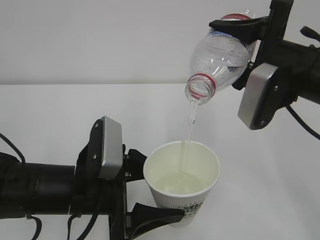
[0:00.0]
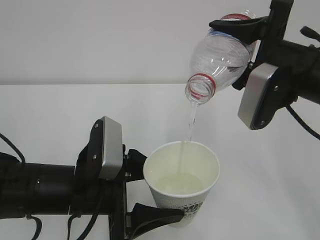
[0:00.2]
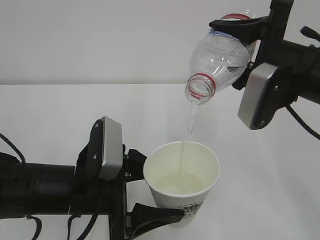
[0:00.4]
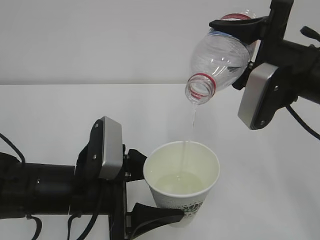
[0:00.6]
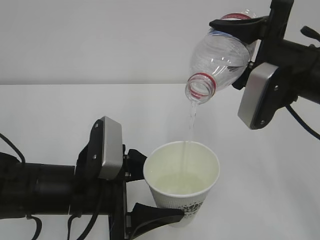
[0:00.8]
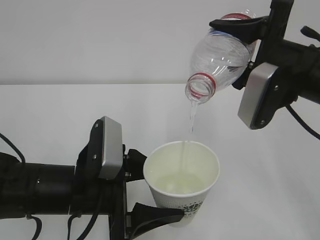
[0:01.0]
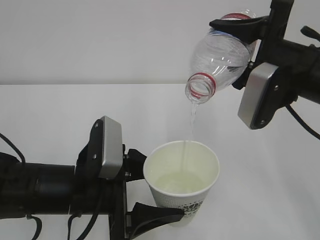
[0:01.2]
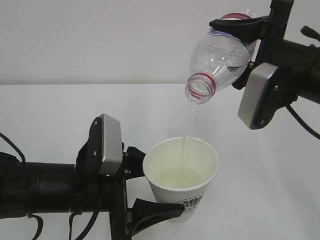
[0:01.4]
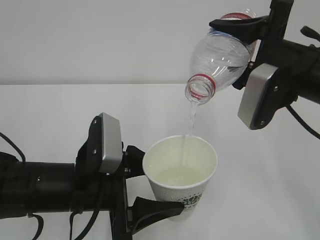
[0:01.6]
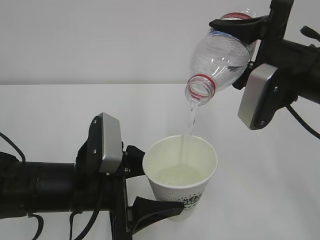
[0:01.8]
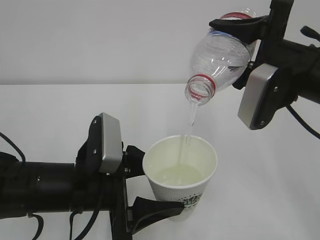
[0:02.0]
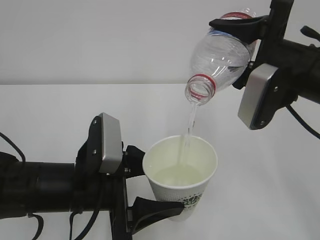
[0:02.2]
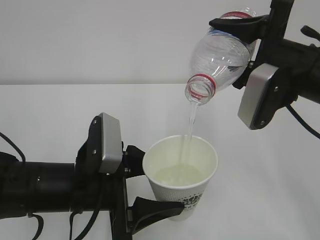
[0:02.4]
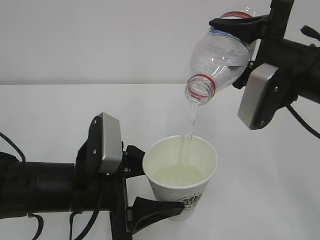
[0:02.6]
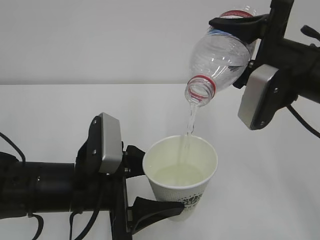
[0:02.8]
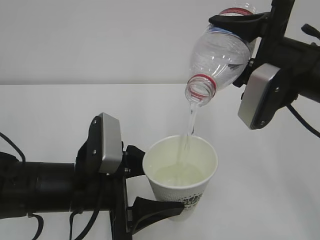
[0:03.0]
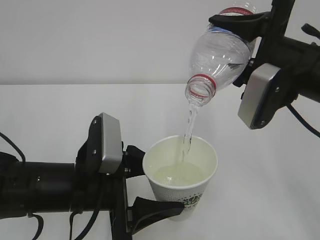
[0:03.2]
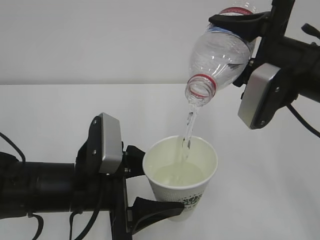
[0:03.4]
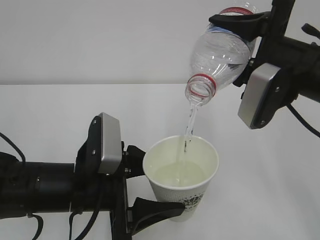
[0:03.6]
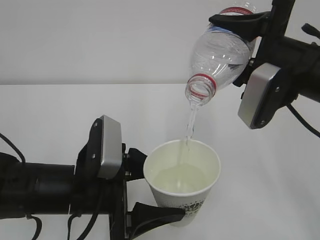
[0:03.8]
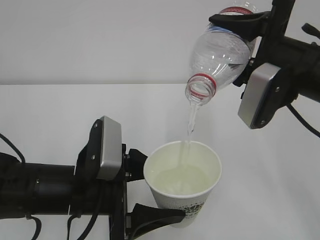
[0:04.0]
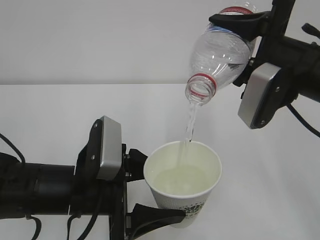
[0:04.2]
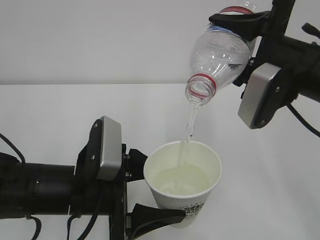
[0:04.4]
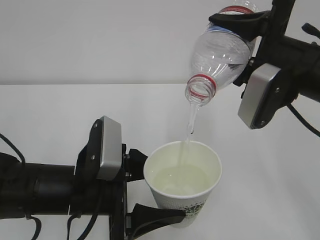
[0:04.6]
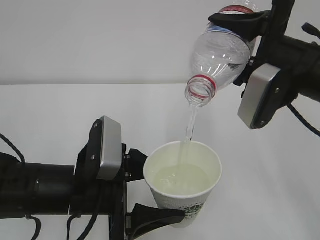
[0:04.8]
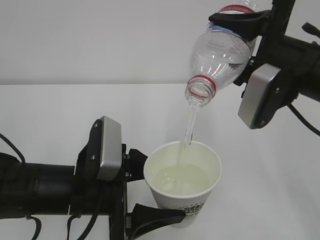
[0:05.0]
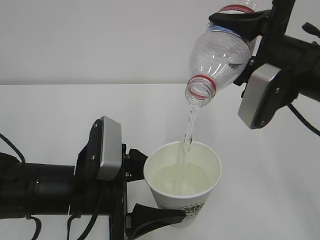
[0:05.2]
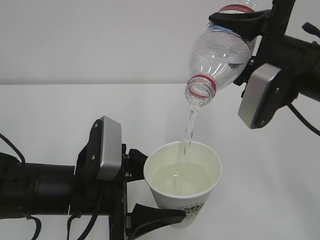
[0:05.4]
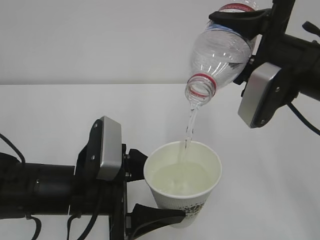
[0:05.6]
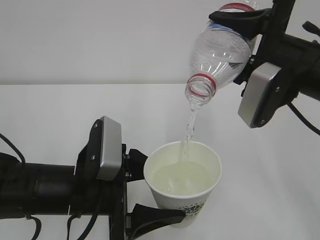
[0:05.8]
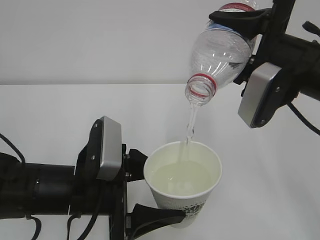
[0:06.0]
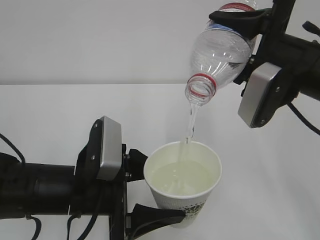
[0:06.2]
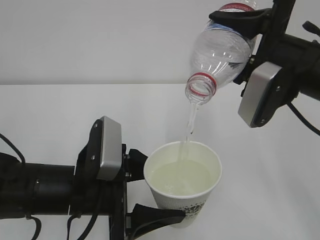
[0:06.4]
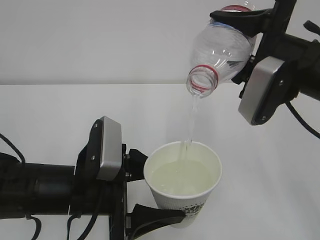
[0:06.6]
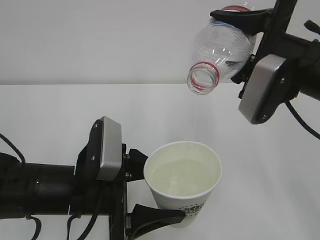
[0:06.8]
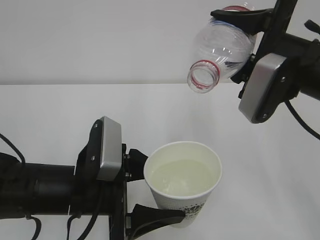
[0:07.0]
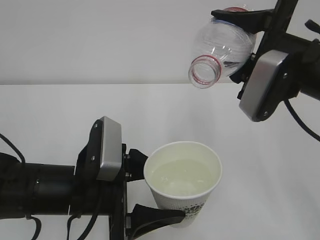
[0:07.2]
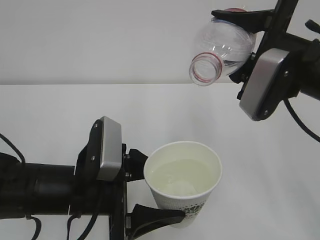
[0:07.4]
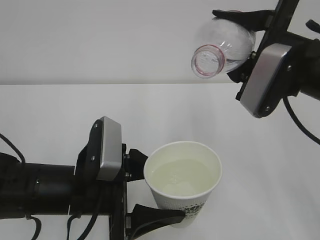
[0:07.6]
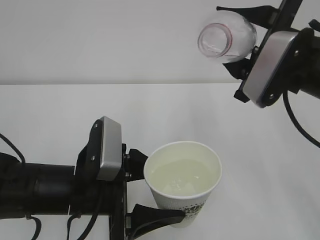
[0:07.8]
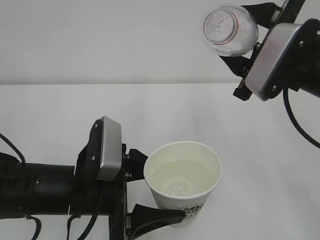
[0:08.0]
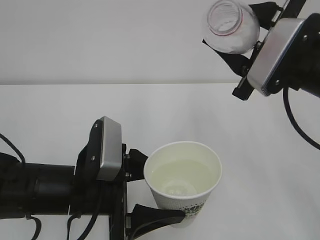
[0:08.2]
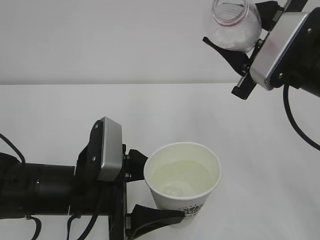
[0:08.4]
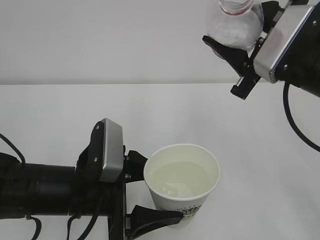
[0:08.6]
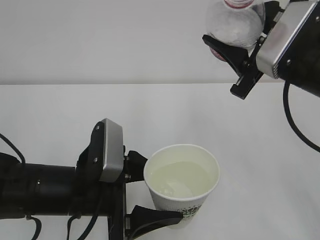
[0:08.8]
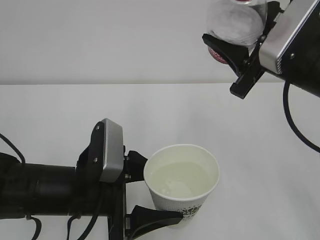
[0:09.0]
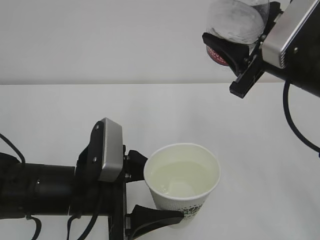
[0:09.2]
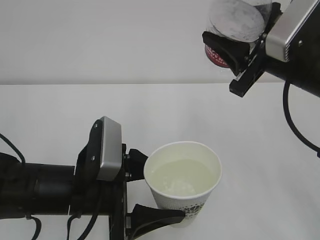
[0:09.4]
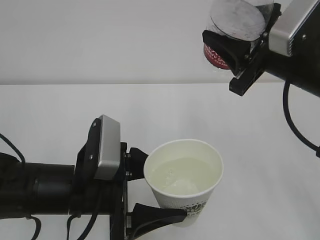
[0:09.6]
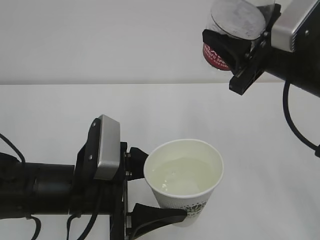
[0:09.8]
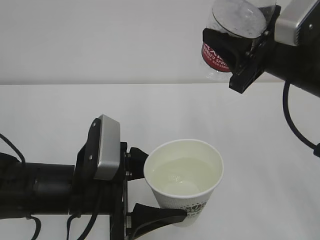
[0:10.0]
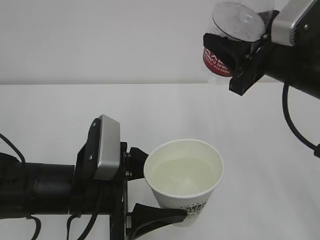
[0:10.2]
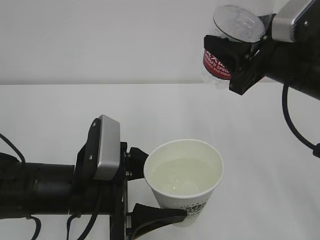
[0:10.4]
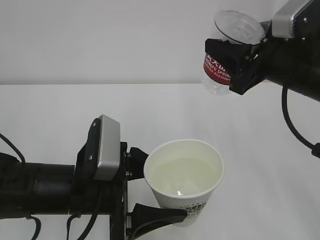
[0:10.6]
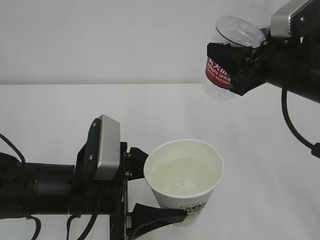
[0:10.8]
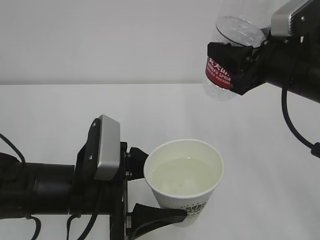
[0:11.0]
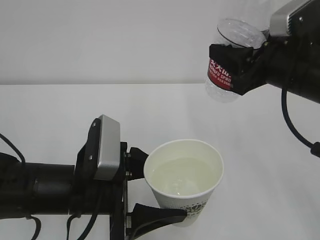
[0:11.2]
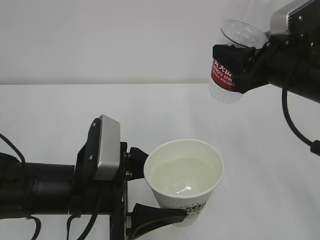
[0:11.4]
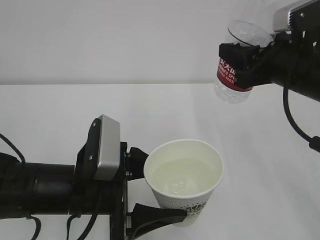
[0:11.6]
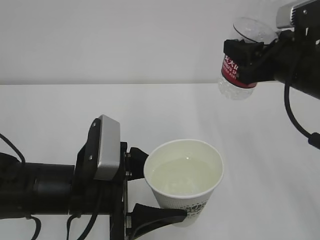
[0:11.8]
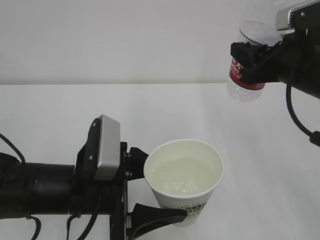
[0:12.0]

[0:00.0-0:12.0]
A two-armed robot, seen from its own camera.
0:00.0 to 0:04.4: Neither gripper changes place.
0:04.4 to 0:06.0: The two grippers keep their place.
0:06.0 to 0:07.6: The grippers move only a little.

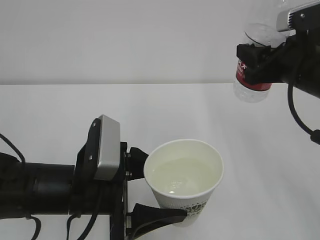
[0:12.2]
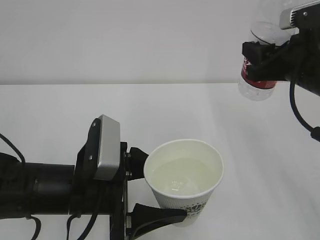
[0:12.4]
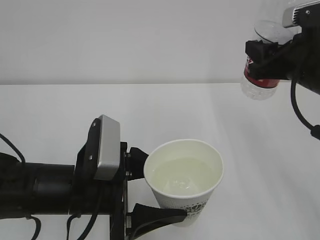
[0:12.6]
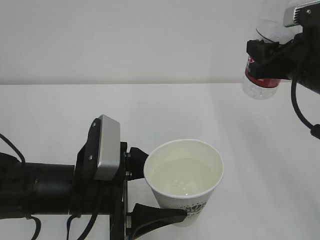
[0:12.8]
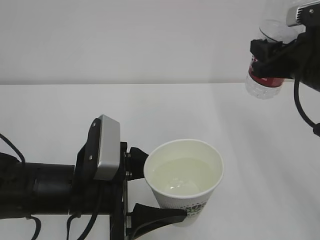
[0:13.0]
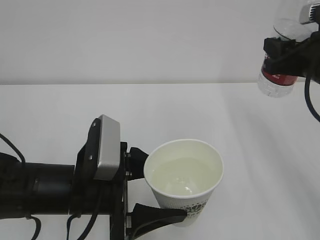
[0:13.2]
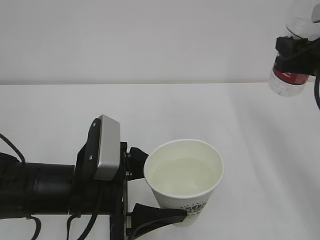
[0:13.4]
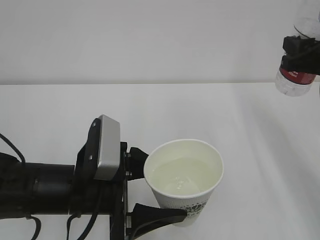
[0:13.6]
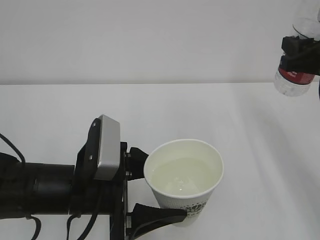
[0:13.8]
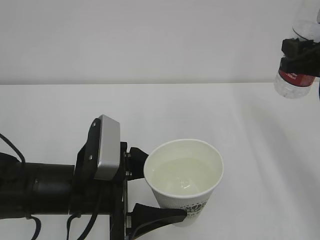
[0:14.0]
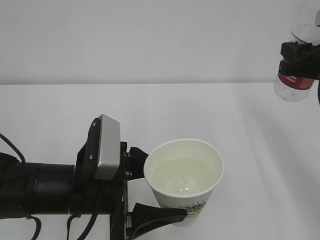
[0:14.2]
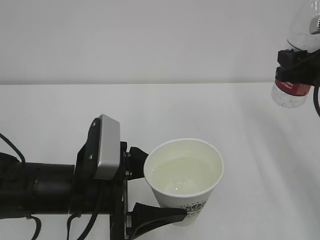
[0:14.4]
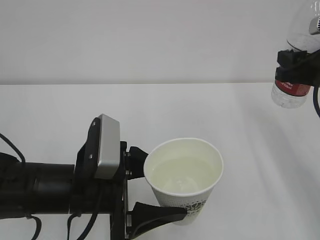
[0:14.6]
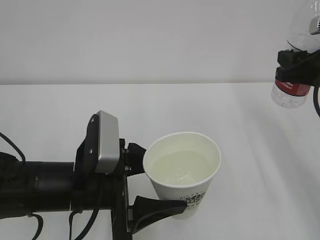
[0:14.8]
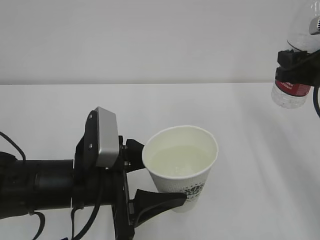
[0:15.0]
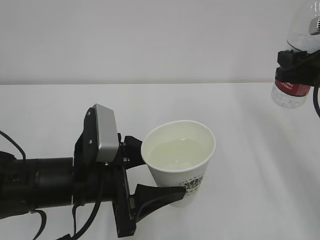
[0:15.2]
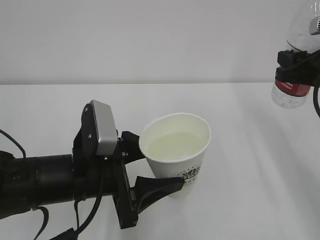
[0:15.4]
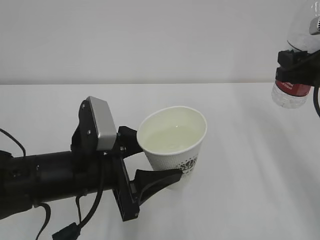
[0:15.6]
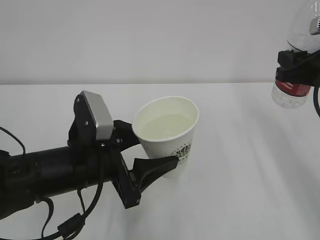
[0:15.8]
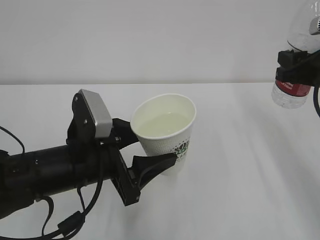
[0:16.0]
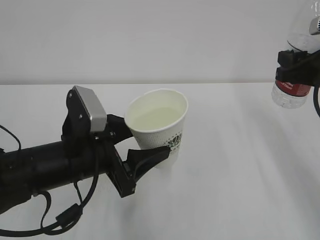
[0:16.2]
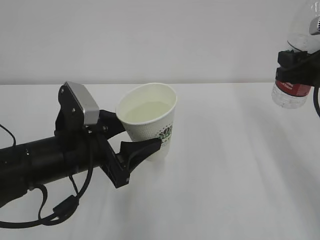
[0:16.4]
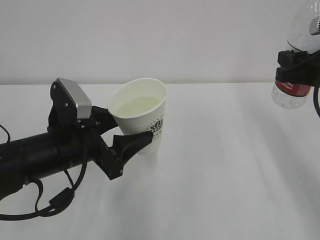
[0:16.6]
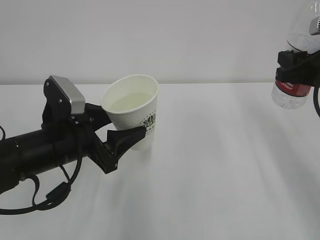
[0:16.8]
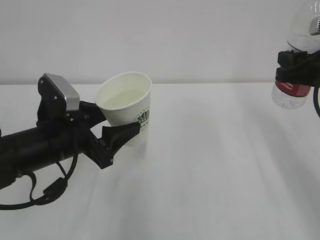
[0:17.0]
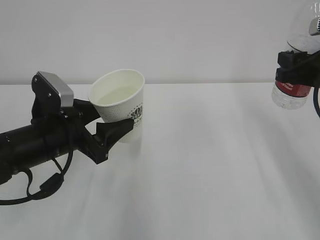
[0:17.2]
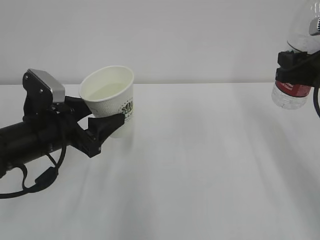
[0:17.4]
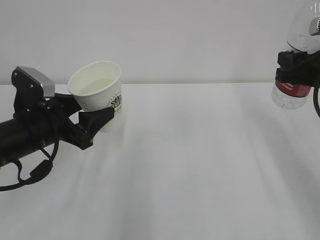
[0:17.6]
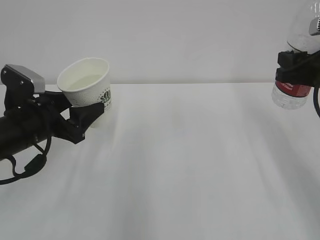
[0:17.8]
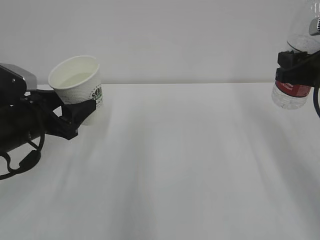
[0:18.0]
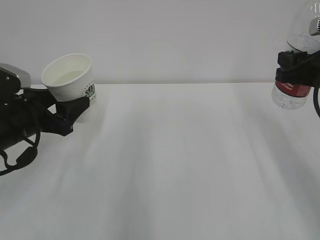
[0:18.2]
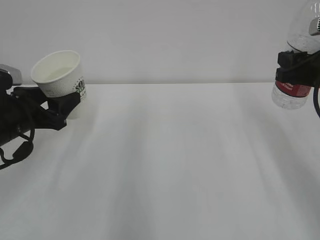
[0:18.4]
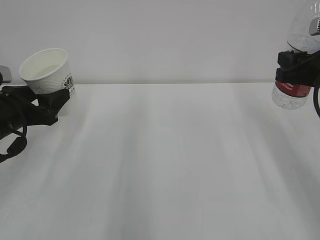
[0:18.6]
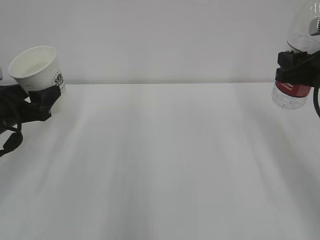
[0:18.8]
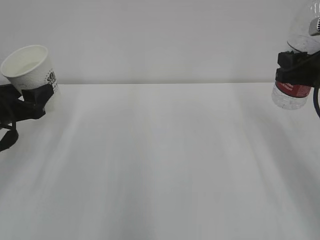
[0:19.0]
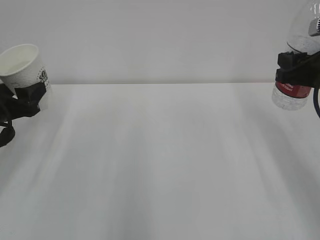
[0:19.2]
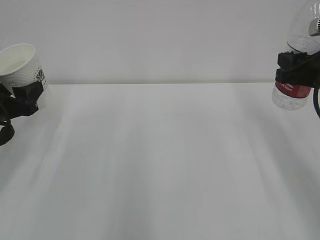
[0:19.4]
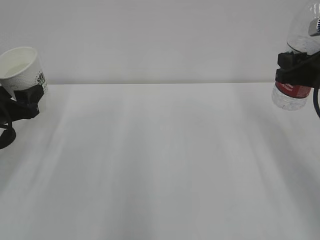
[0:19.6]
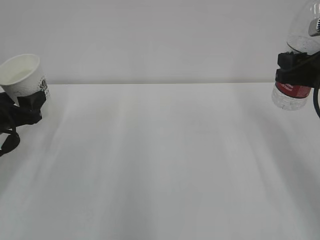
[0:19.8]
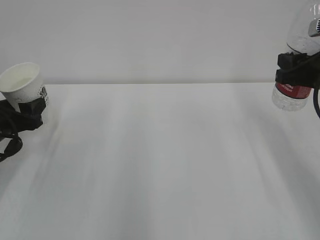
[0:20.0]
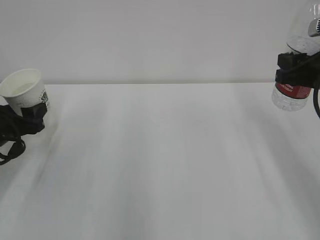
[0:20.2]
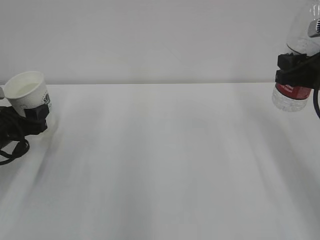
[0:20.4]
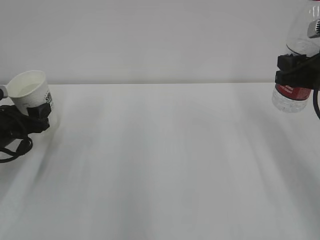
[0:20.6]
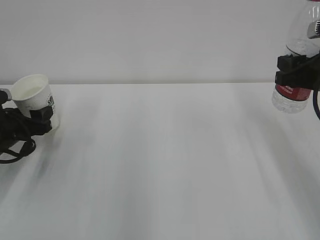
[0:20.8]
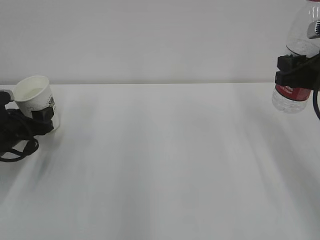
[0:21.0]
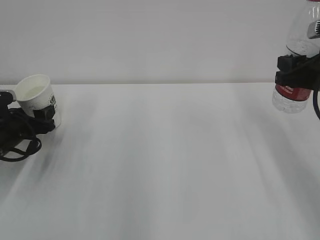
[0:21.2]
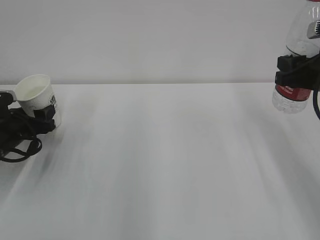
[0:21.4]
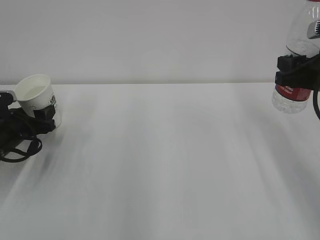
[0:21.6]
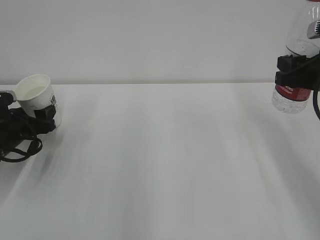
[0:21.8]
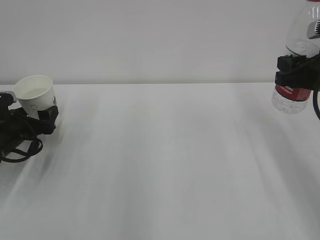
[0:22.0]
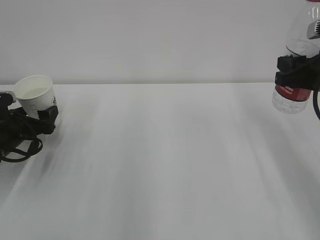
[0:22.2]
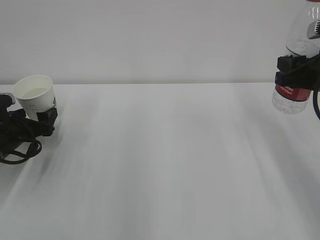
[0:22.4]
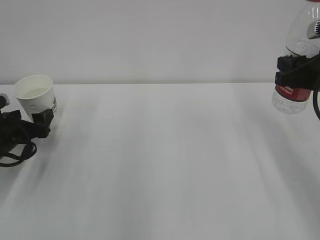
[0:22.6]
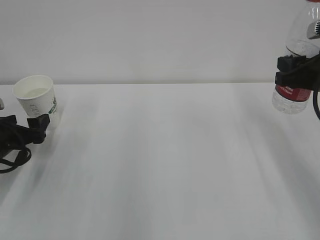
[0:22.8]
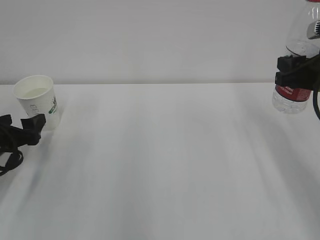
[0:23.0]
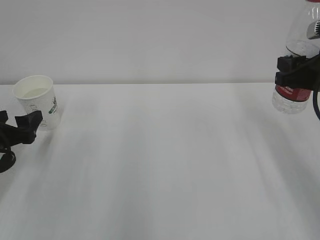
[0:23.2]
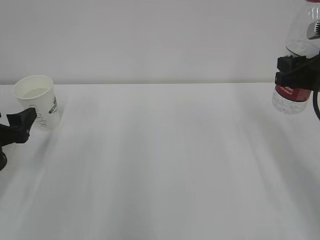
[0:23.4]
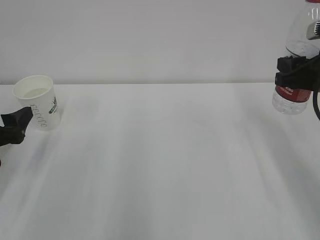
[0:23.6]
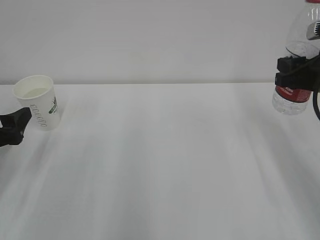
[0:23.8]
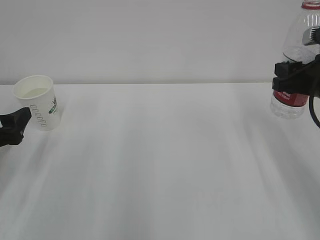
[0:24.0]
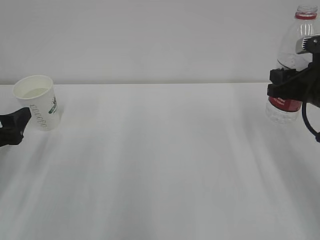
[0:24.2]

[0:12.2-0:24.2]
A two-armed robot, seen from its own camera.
0:12.2 to 0:13.8: The right gripper travels to the right by about 5 cm.
0:13.8 to 0:15.2: The grippers make only small movements.
0:15.2 to 0:16.6: The left gripper moves approximately 5 cm.
0:16.6 to 0:18.2: The left gripper travels to the left by approximately 10 cm.
0:18.2 to 0:19.8: The left gripper shifts about 5 cm to the left.
0:19.8 to 0:21.2: The left gripper heads downward, covering some 5 cm.
0:21.2 to 0:22.6: The left gripper opens its fingers.
0:22.6 to 0:24.2: The left gripper travels backward and upward by approximately 10 cm.
